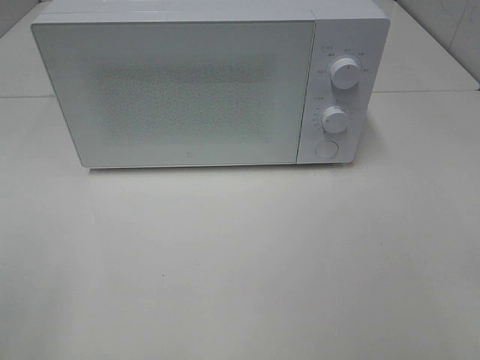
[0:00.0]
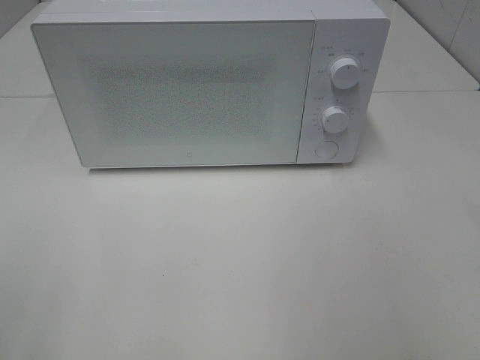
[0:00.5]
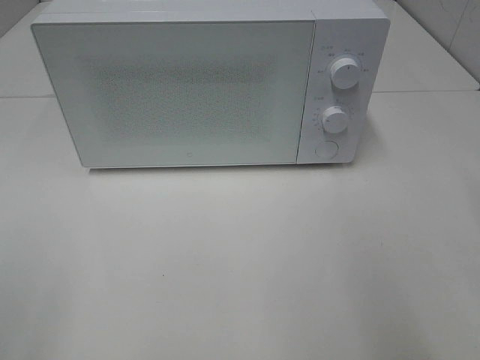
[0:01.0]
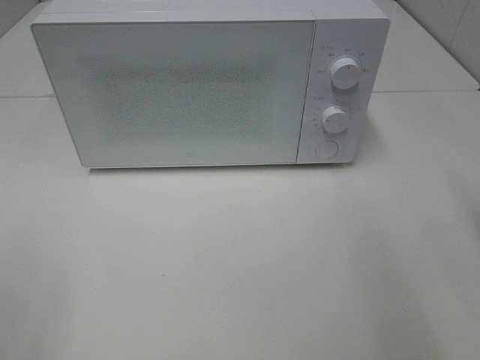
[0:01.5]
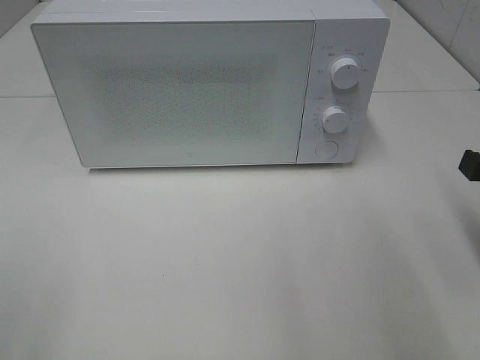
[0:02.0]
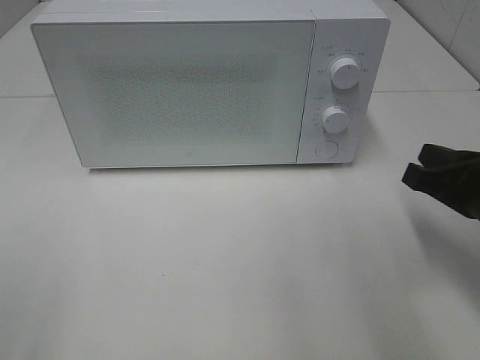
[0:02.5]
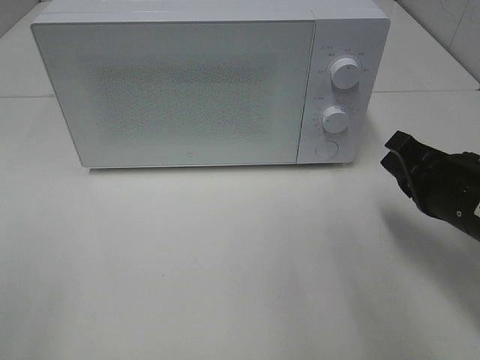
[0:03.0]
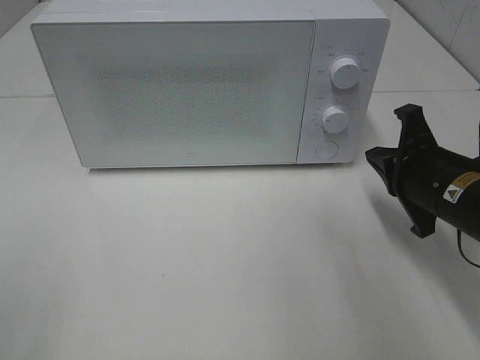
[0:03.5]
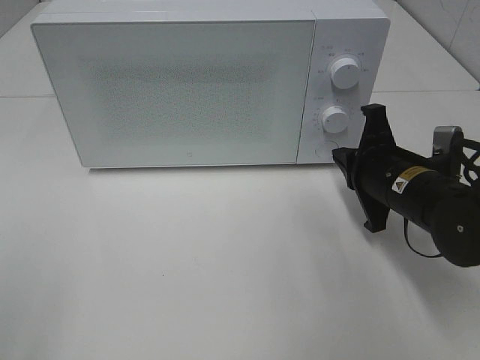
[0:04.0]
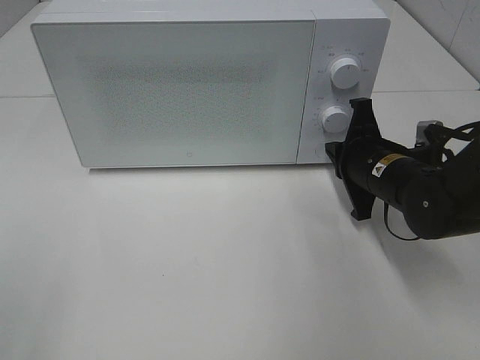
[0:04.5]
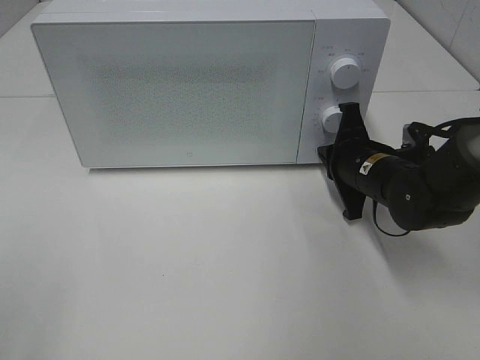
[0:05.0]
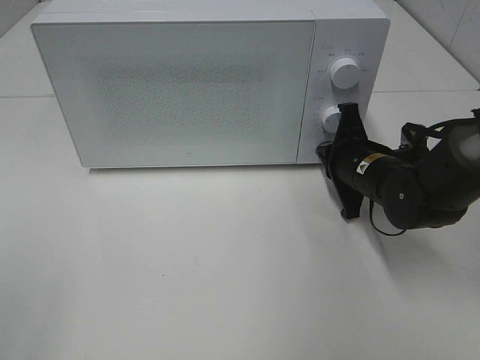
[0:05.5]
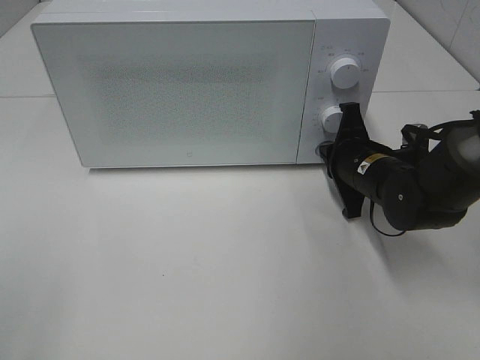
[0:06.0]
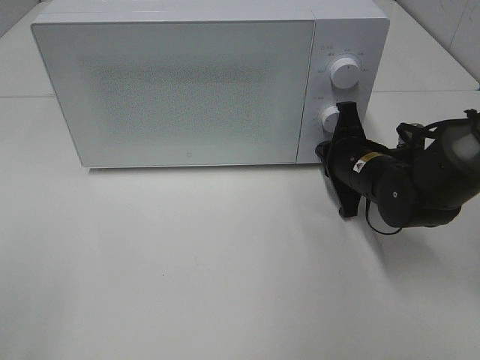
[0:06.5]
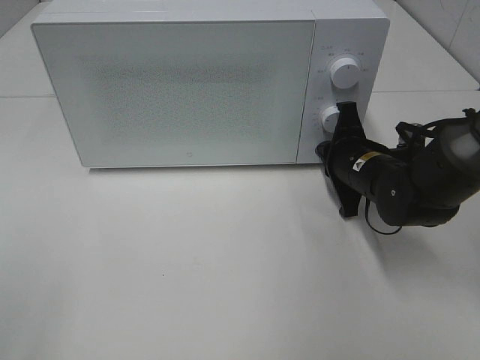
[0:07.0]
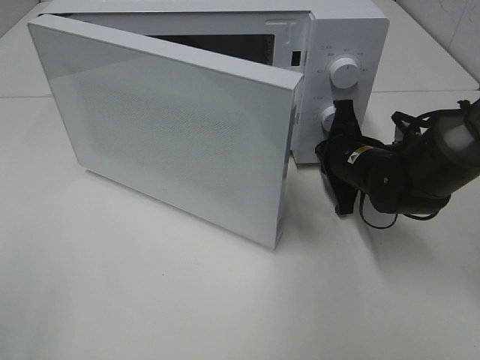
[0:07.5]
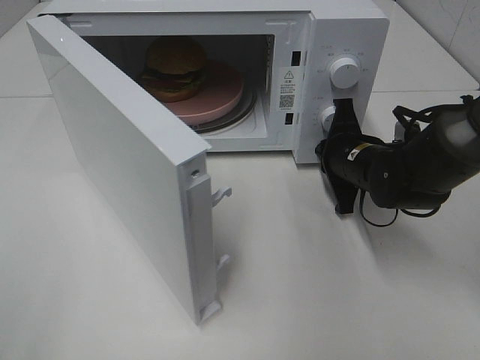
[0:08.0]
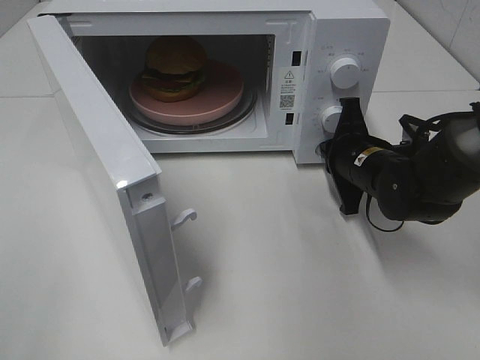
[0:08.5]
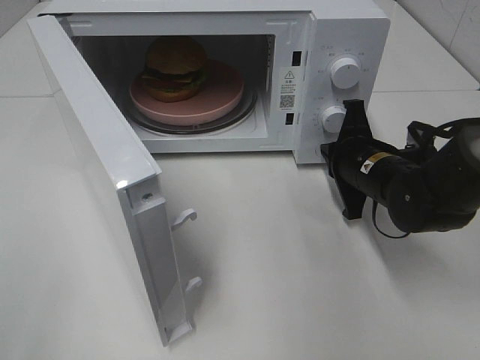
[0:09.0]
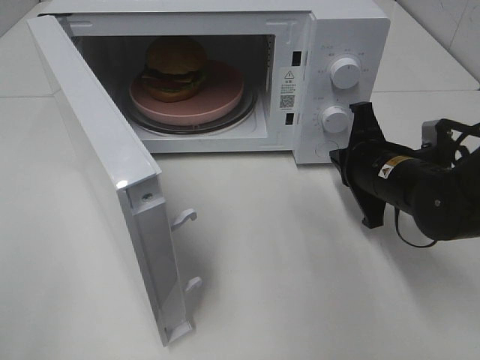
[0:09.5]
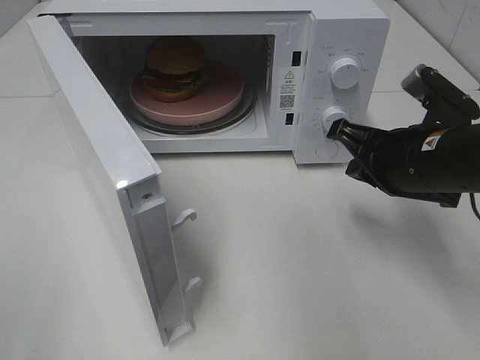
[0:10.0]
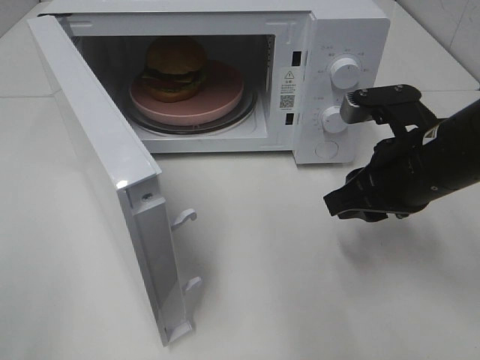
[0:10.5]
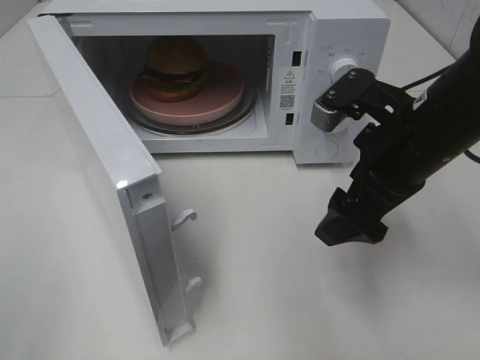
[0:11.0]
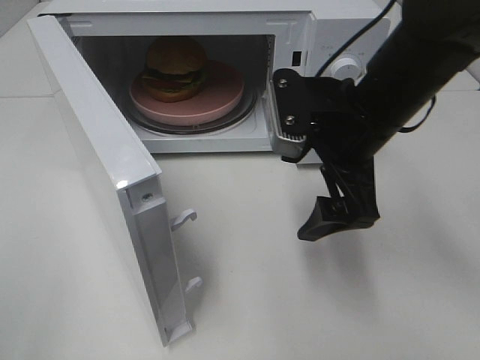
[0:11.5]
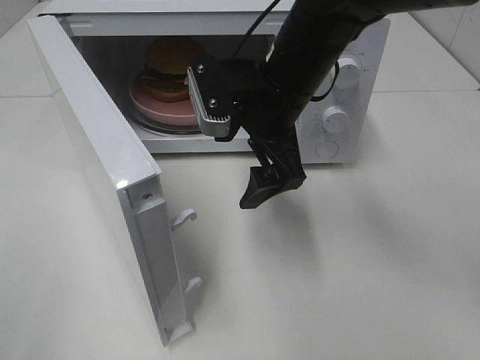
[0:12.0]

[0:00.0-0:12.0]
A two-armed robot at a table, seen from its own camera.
Task of the whole recording: Heat the burger.
Step, 0.0 to 8.5 s: Right hand: press the switch.
0.0 to 2.0 s: The right gripper shifts about 20 cm forward and downward, and closes up.
2.0 to 4.0 s: The right gripper is displaced forward, to the left and downward by about 15 cm.
4.0 to 6.0 s: The right gripper goes roughly 5 cm forward.
8.0 to 10.0 s: The right gripper shifts roughly 15 cm backward and upward.
10.0 to 12.0 s: The right gripper shifts about 15 cm to the left, and opens its fingers.

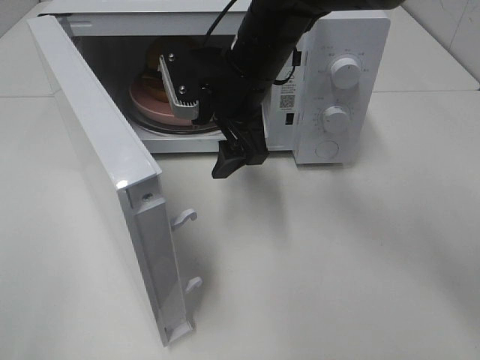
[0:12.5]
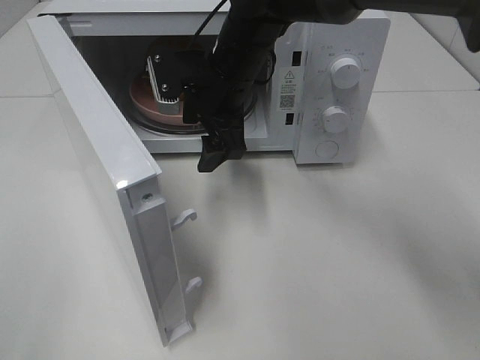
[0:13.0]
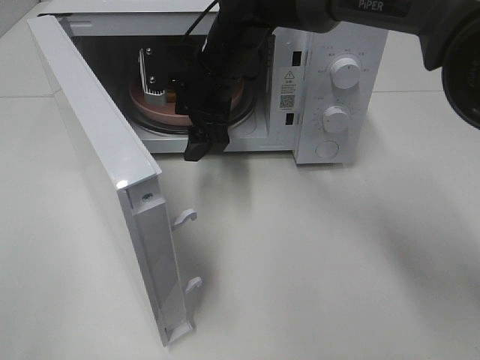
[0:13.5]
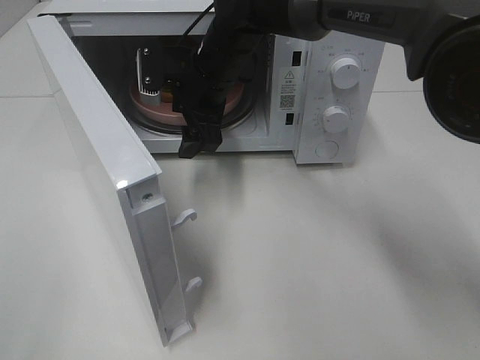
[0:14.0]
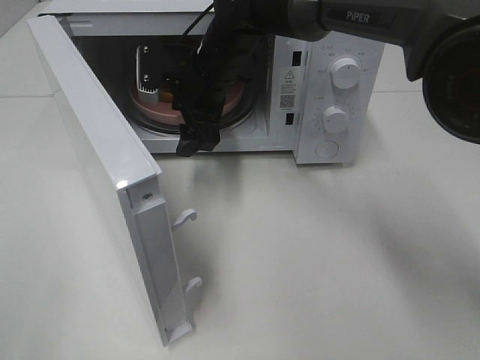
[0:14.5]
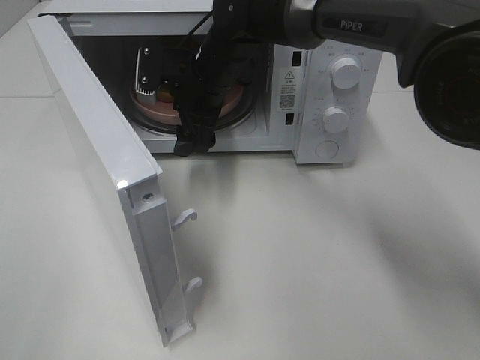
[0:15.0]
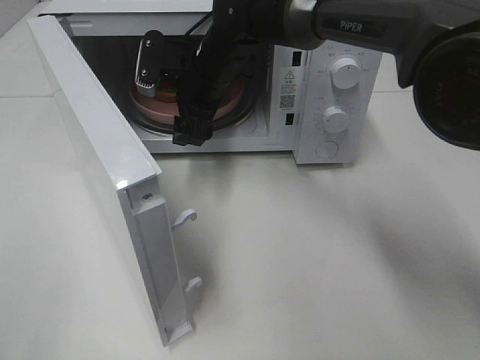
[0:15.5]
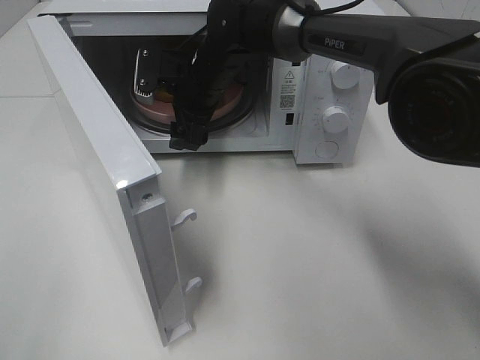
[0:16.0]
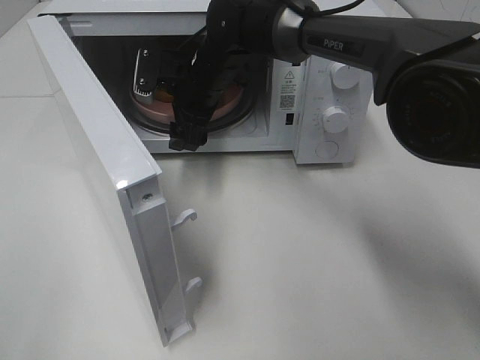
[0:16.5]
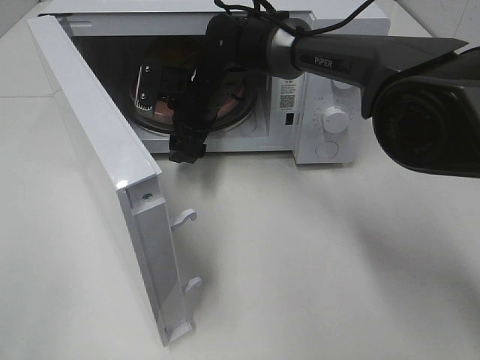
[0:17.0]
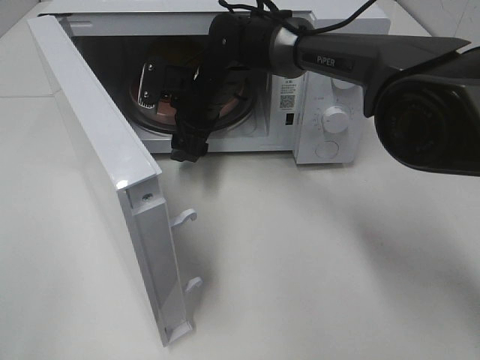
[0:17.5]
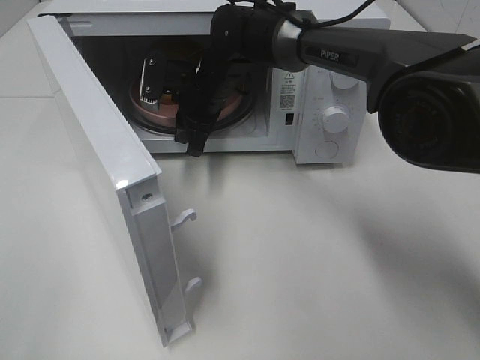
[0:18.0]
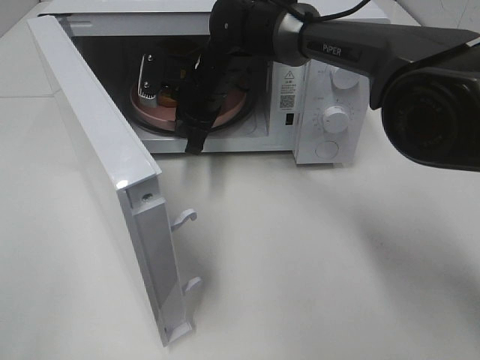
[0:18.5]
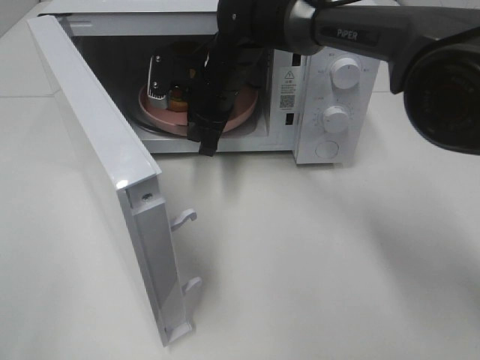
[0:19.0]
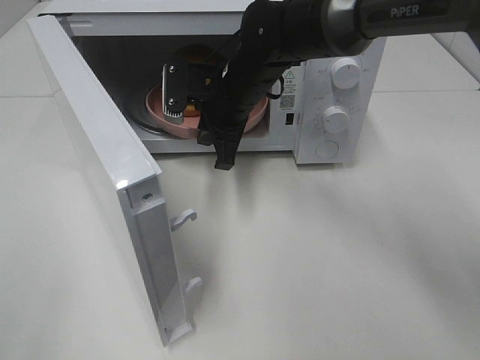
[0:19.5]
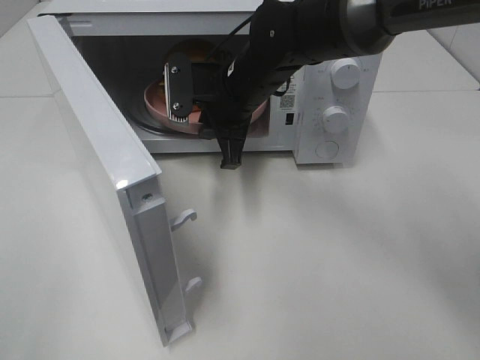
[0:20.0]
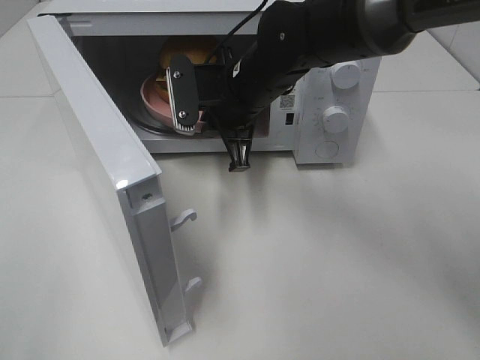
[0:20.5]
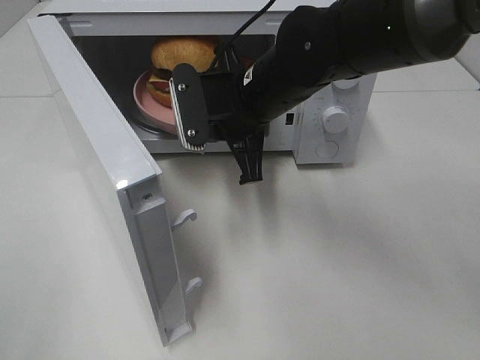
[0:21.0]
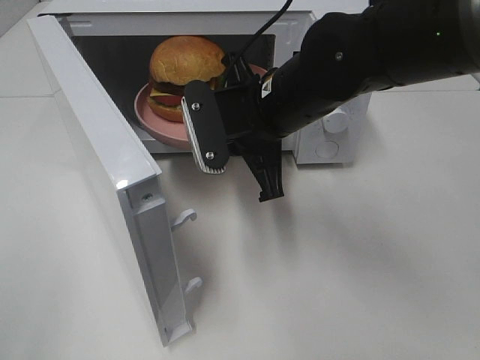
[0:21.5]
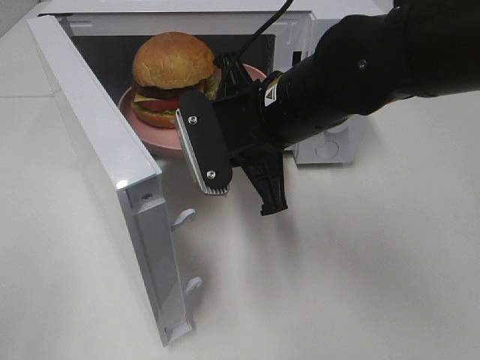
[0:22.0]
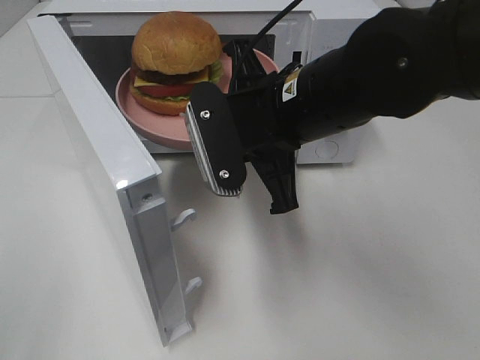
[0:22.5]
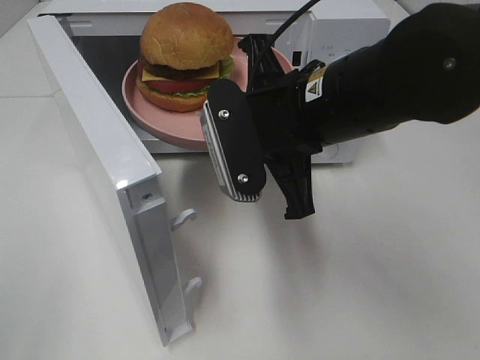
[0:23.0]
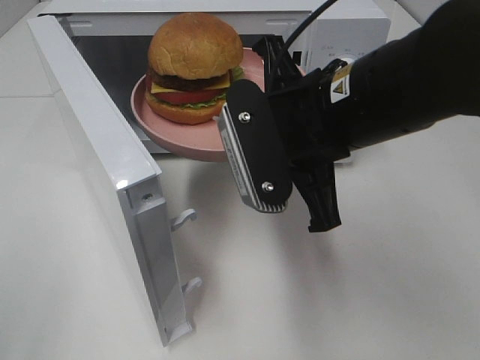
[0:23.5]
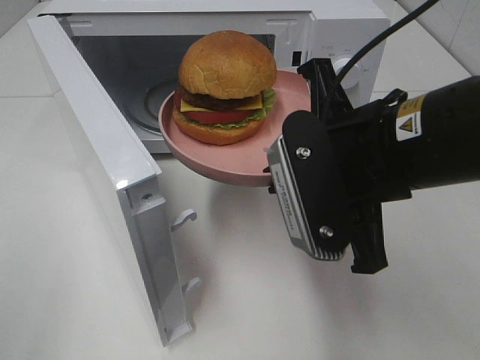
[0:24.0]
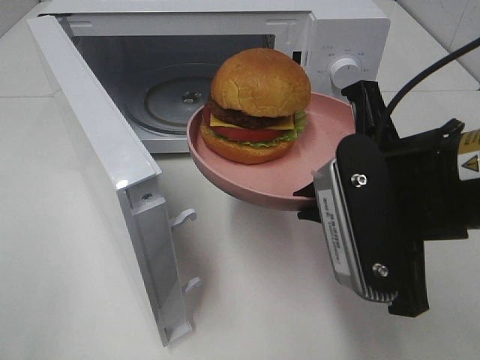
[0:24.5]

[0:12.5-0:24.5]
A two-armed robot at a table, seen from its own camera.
Task of the whole recording: Heat the burger.
Step, 12.5 to 18.0 s: Right hand: grab the plate with the hamburger.
12.5 to 14.5 s: The right gripper heads forward, covering some 5 cm.
14.5 to 16.5 s: The grippers move only a little.
16.5 to 18.5 s: The right gripper closes.
18.5 to 20.5 s: The right gripper shifts about 10 cm backward and to the right.
20.5 to 22.5 s: The right gripper goes some 10 cm backward.
22.5 to 24.5 s: The right gripper heads backward and to the right, covering roughly 15 cm.

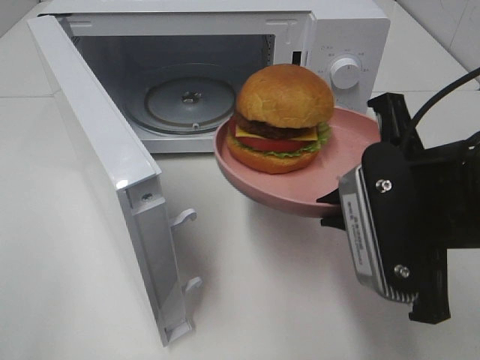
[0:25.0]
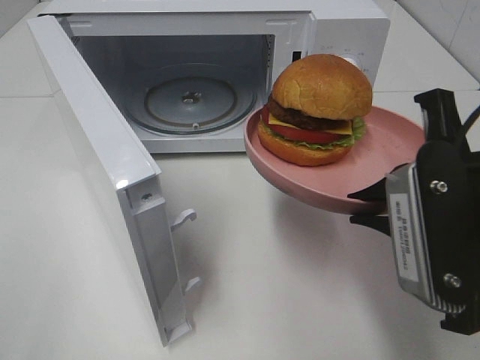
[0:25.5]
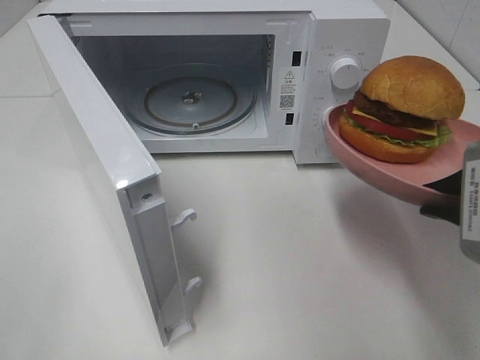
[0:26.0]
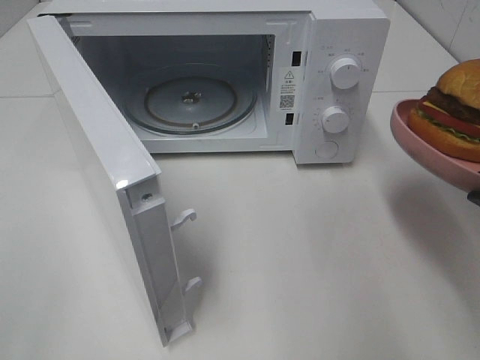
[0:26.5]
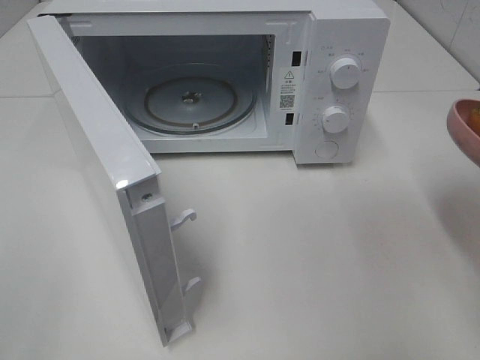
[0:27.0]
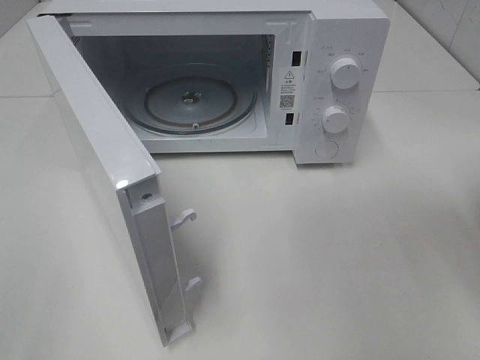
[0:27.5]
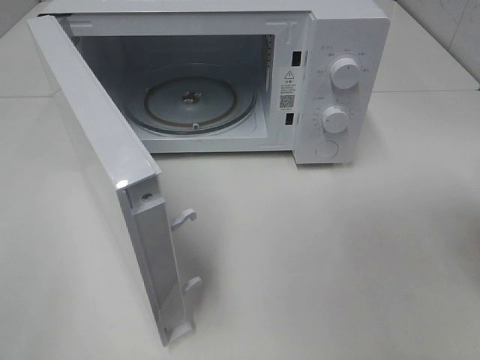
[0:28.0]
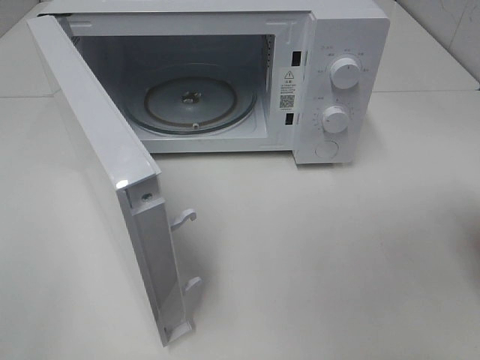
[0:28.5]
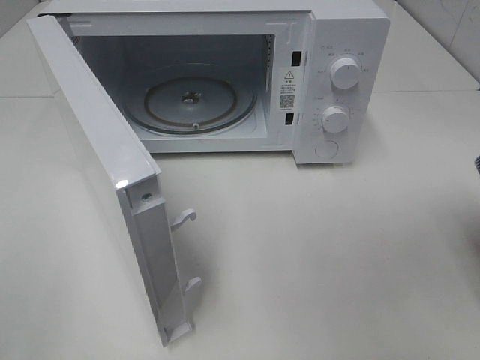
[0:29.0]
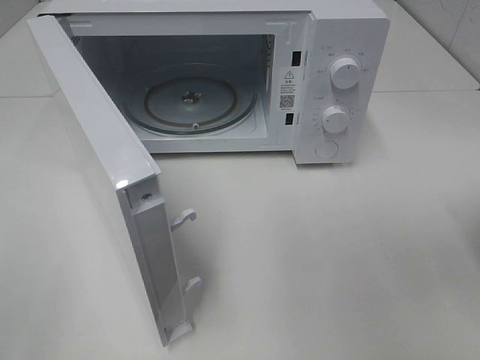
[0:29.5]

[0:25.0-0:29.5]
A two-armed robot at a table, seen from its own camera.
Task of the whole recording: Heat the burger.
25.0 to 27.0 s: The right gripper travels to the right by roughly 10 cm.
27.0 to 29.5 s: The right gripper goes about 10 cm downward and forward.
